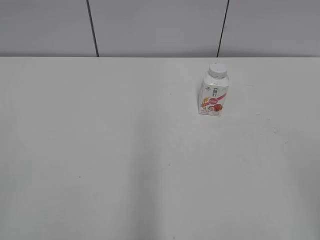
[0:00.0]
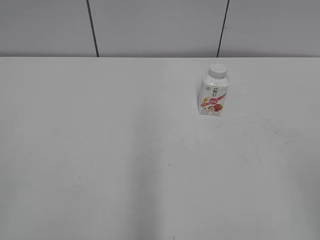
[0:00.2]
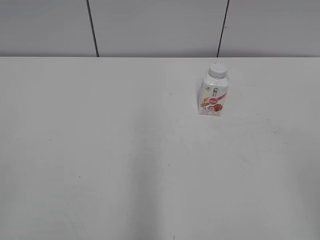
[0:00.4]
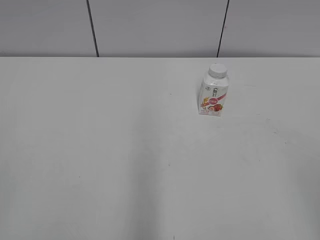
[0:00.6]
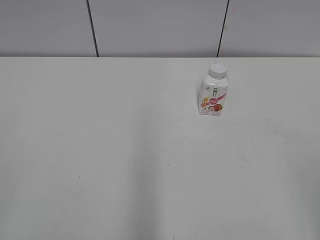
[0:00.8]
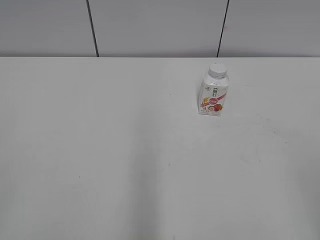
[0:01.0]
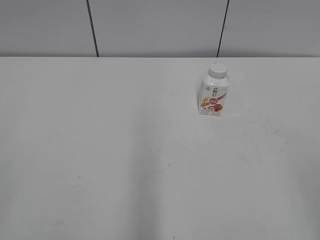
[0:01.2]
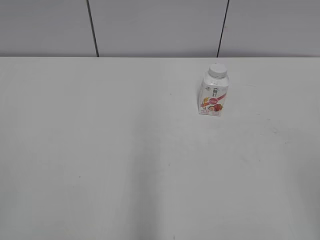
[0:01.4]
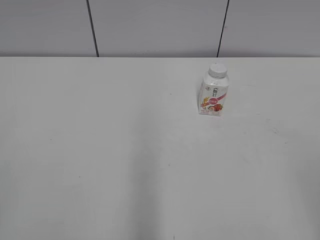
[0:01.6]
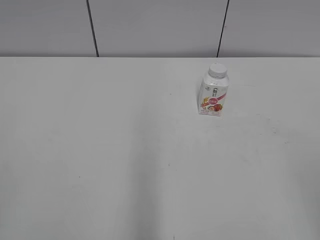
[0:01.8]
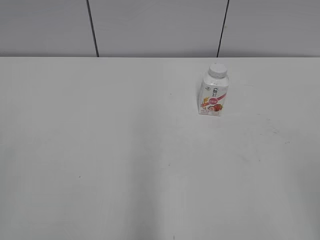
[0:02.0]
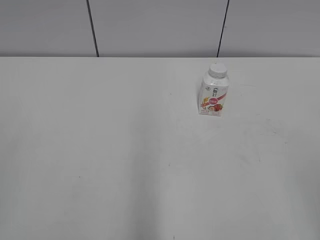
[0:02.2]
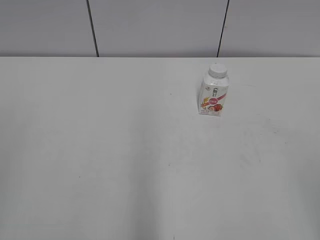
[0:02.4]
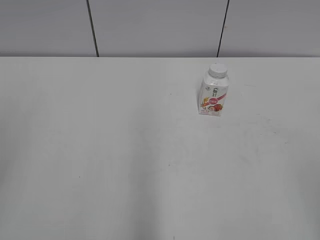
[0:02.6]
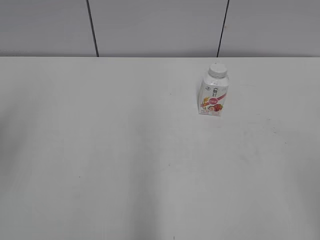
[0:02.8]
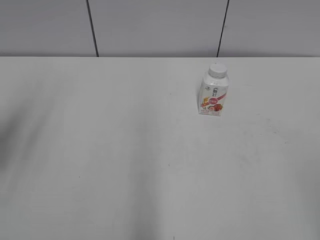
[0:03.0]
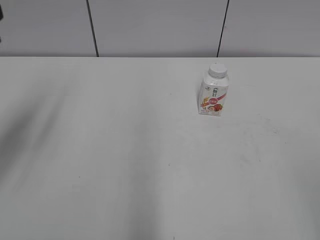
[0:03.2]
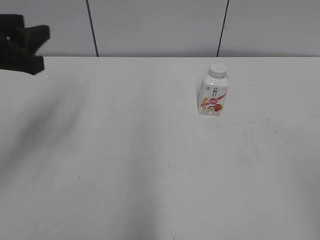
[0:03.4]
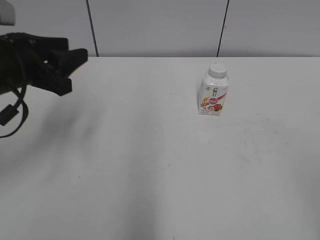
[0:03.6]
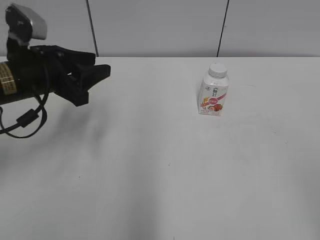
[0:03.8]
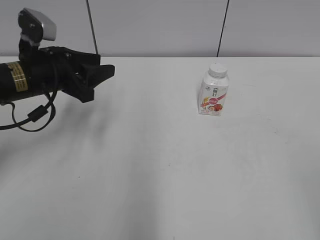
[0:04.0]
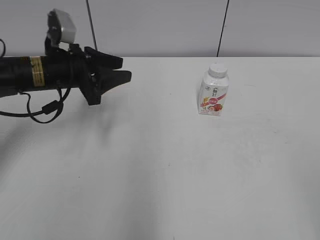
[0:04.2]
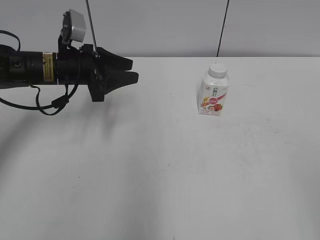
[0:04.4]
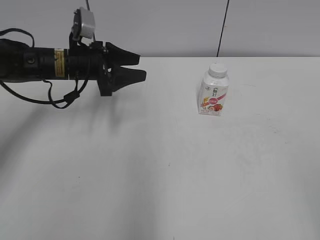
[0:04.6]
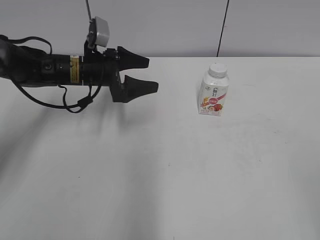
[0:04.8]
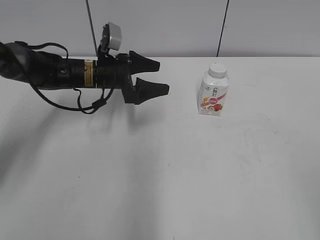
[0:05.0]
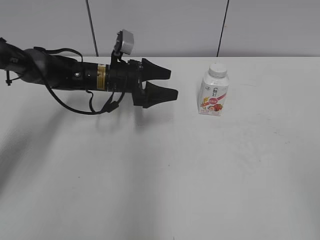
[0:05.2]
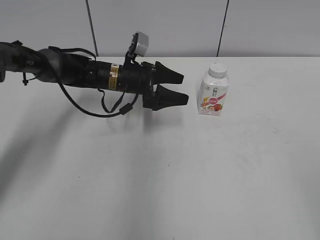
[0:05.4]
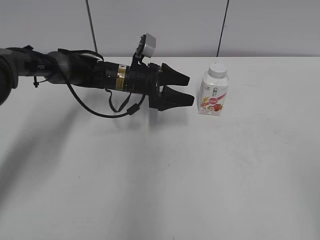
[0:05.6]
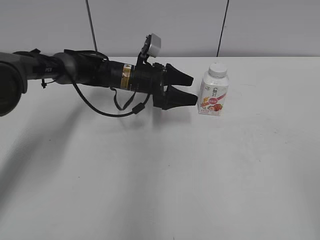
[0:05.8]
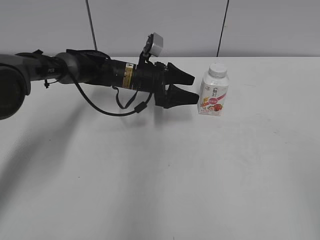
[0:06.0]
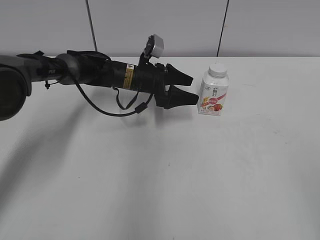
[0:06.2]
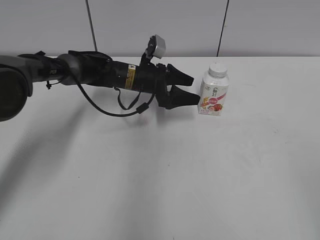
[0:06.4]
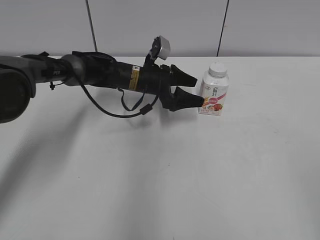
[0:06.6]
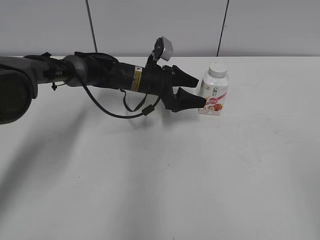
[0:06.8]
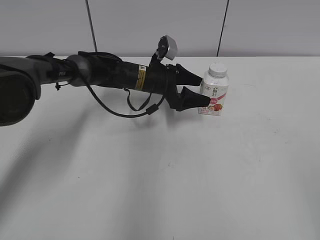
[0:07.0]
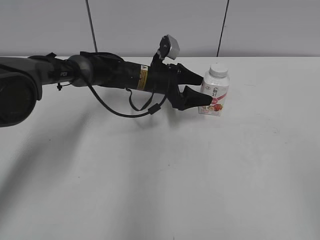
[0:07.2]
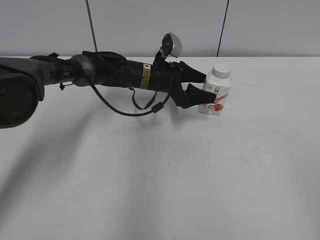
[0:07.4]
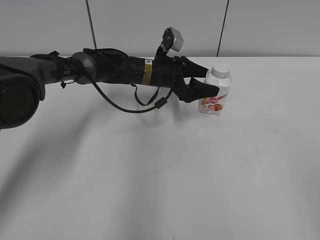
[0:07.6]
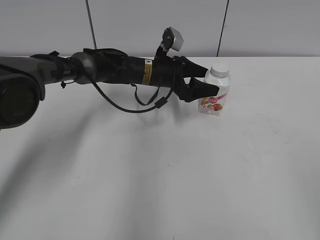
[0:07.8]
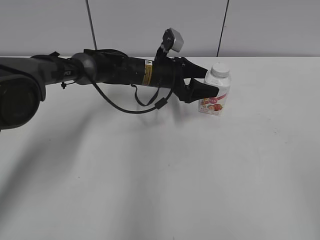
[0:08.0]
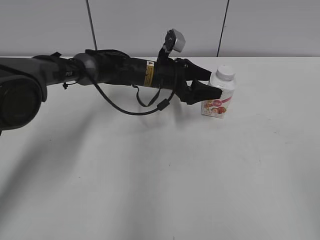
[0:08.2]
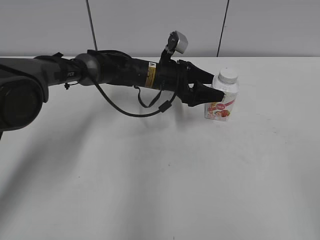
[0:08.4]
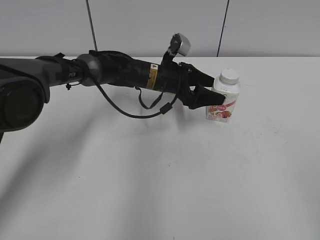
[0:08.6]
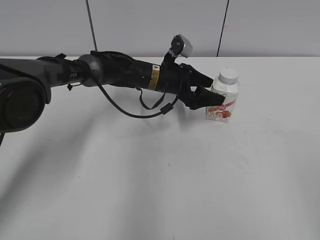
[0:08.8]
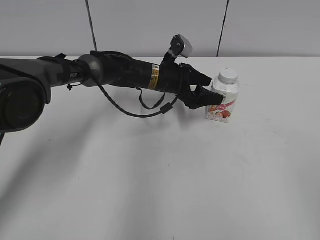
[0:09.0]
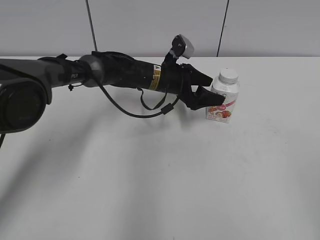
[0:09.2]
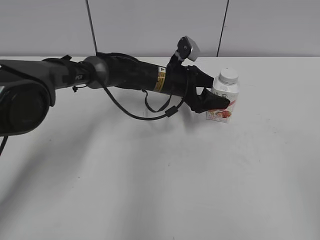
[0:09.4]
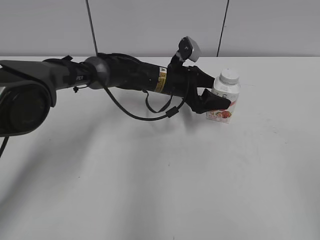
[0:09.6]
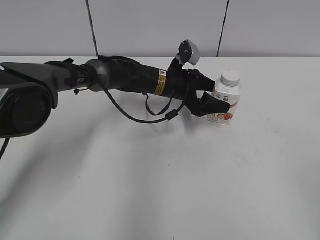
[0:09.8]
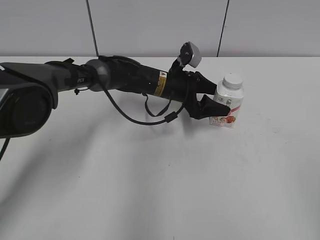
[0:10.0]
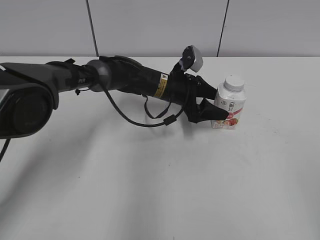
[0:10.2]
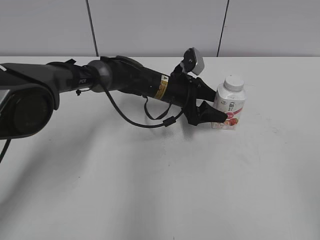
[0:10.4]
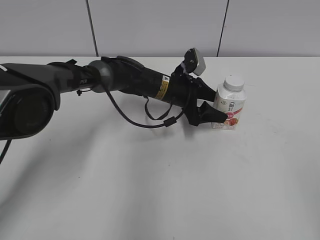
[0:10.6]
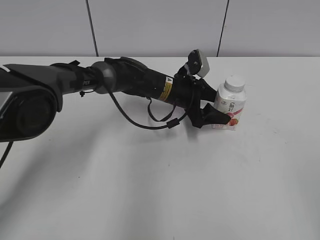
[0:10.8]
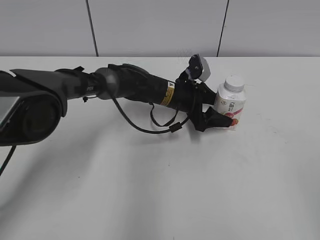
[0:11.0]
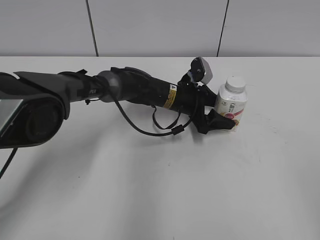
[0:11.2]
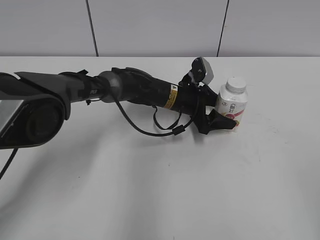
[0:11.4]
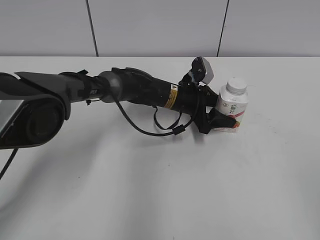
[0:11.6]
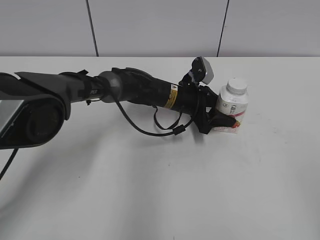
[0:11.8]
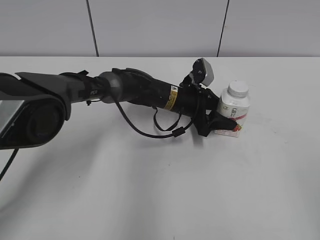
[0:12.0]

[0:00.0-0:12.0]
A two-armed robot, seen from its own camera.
Step, 0:00.0 to 0:11.8: Grab the Yili Changqing with the left hand.
0:01.6 to 0:03.0: The left gripper travels forward by some 20 cm.
0:03.0 to 0:04.4: The left gripper is displaced forward, downward and to the right by about 25 cm.
0:04.4 to 0:06.0: The left gripper travels to the right, forward and downward by about 15 cm, and opens up.
0:06.0 to 0:09.0: The grippers stay close to where they were, moving slightly.
0:09.0 to 0:10.4: The grippers stay close to where they were, moving slightly.
0:10.4 to 0:12.0: The left gripper closes up.

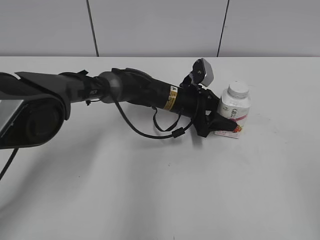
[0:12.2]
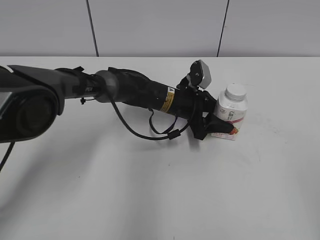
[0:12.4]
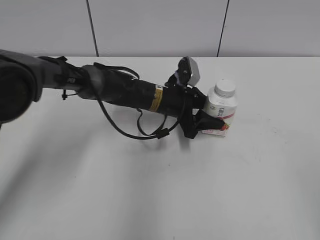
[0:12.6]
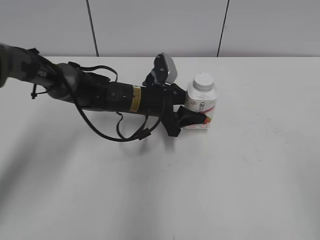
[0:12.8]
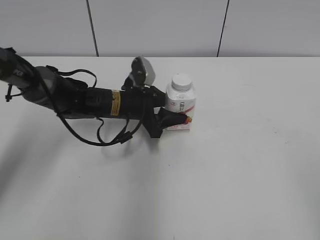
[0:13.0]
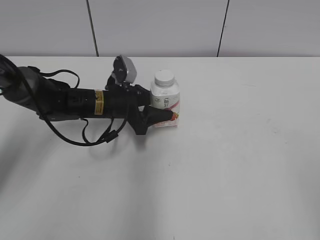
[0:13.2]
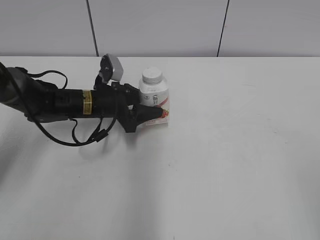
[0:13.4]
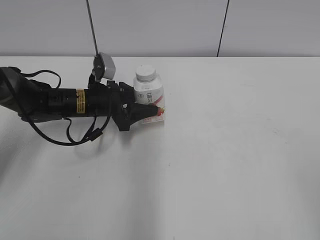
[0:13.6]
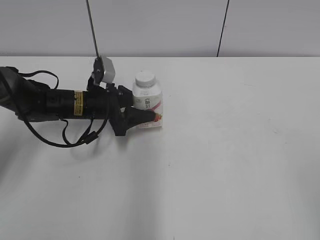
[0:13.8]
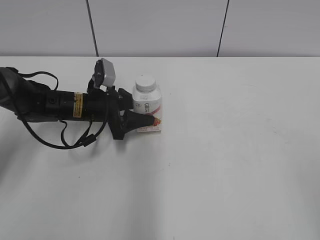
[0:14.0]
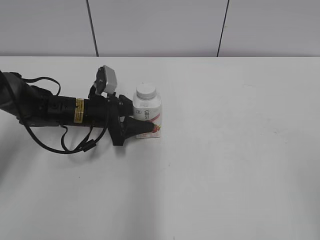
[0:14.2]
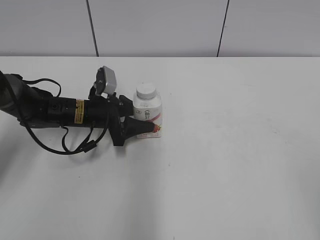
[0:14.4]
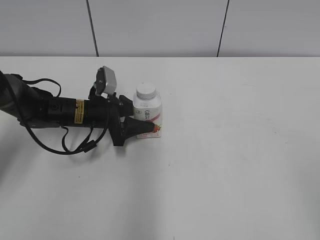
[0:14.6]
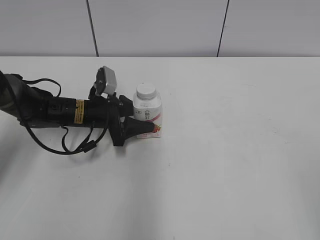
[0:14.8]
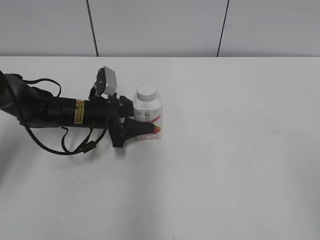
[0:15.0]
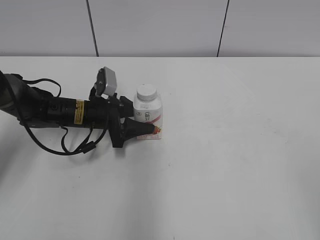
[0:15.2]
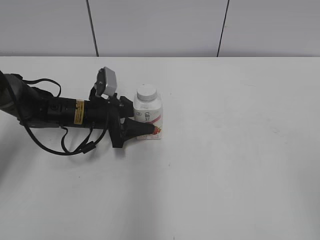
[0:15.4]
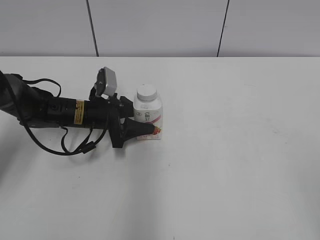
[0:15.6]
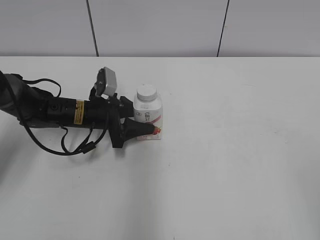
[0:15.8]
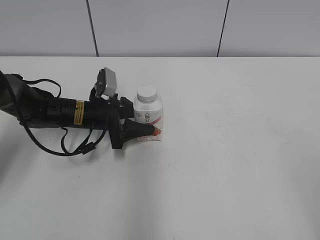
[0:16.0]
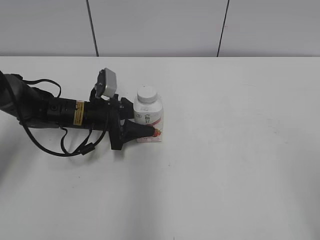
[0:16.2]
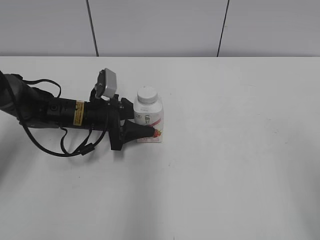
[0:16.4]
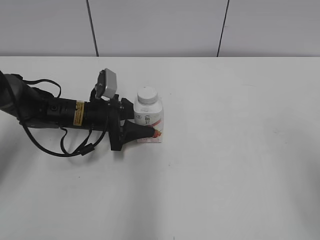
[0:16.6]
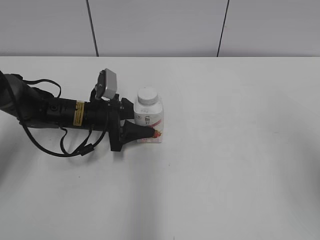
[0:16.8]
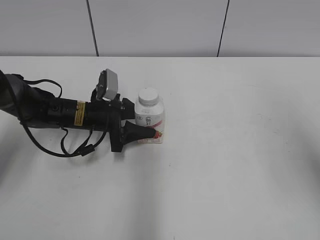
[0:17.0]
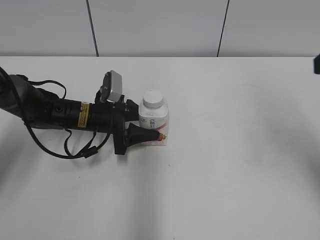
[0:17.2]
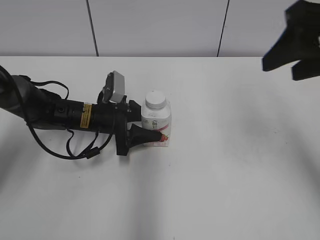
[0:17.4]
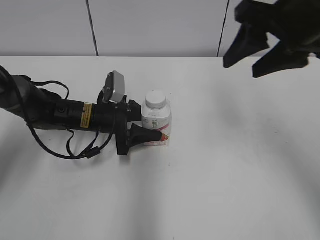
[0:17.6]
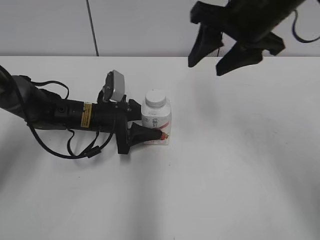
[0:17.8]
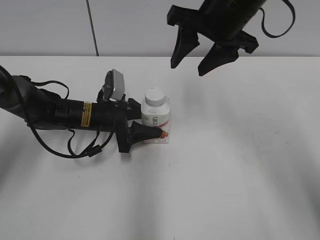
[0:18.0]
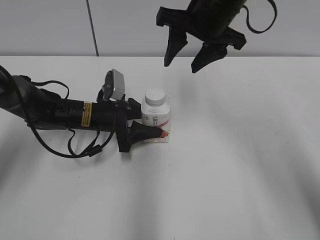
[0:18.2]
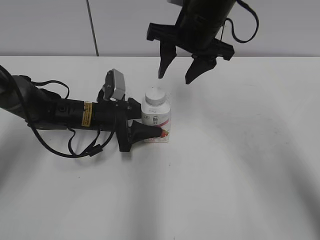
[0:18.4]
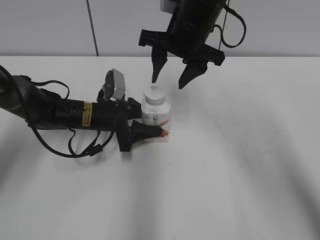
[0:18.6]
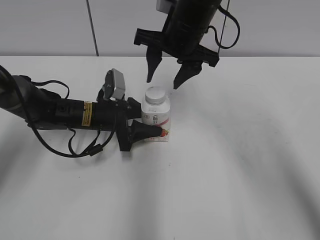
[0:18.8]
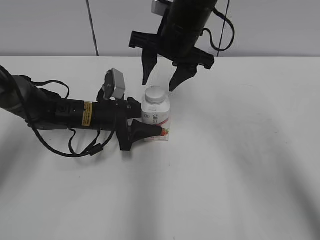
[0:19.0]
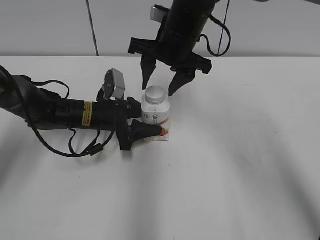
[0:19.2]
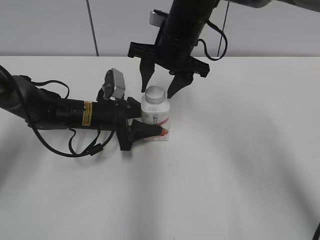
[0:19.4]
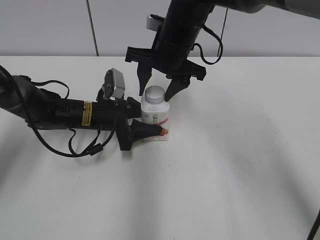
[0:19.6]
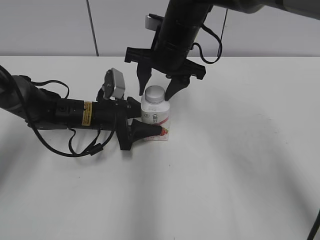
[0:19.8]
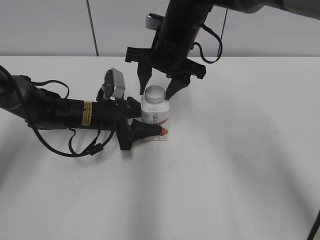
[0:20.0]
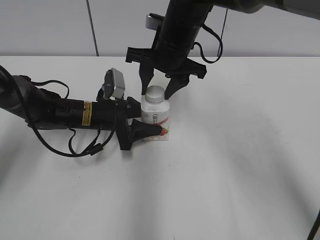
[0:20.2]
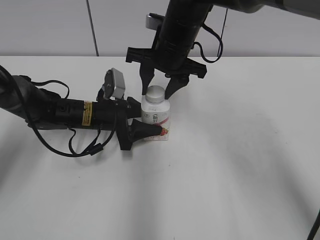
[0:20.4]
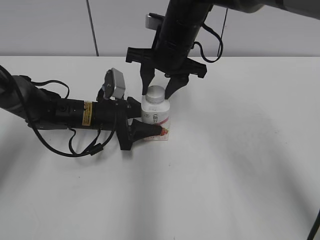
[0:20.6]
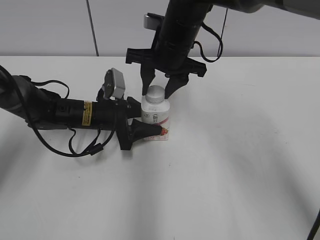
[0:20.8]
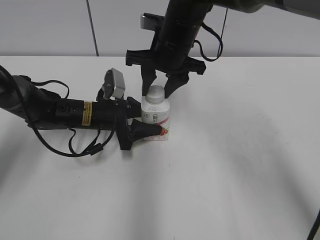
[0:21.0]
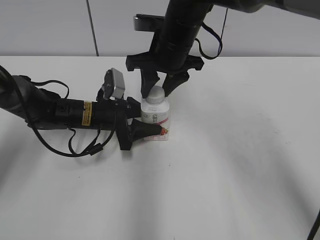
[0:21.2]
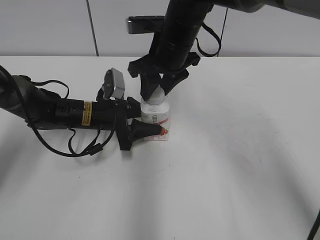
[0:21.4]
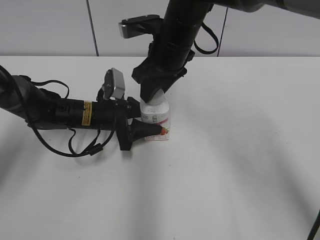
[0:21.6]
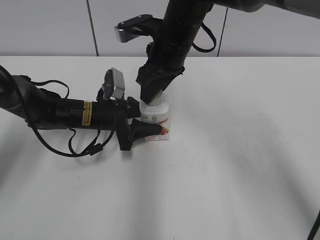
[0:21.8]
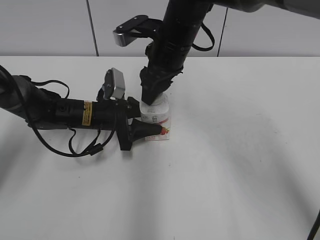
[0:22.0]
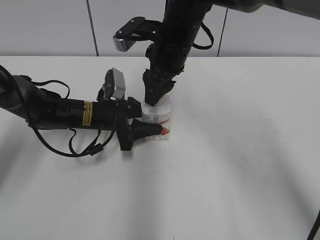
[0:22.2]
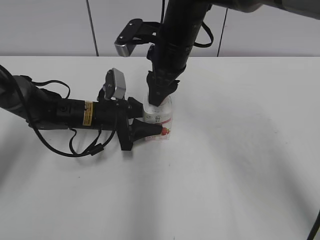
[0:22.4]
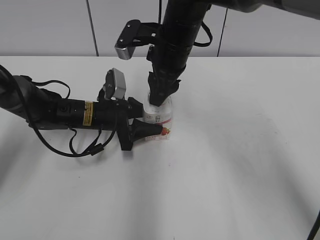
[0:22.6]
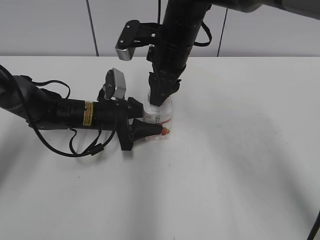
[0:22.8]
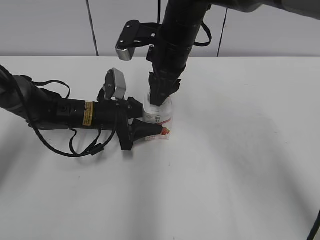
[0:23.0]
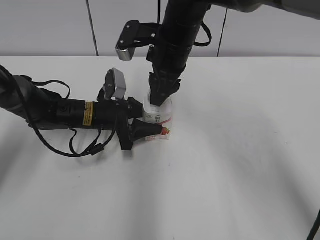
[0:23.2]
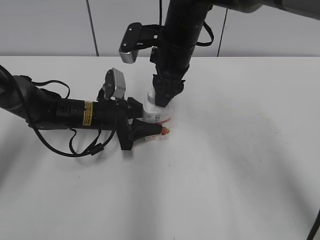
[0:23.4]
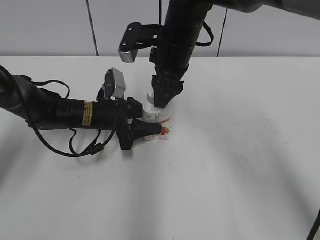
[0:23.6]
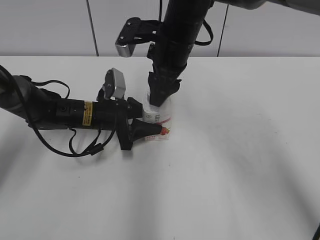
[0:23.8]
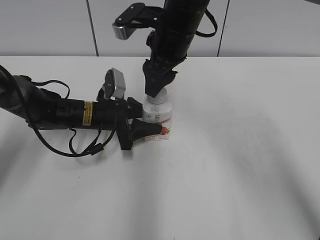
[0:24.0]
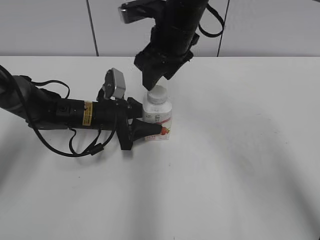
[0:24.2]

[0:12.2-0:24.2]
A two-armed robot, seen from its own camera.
Step, 0:12.2 to 0:14.4: Move the Yili Changqing from right to left.
0:12.2 to 0:13.8: The left gripper moves to the left, about 20 cm.
0:13.8 to 0:15.2: The grippers move only a little.
0:15.2 to 0:16.6: The right gripper travels forward by about 10 cm.
0:16.6 to 0:18.2: The right gripper is displaced forward and to the left by roughly 35 cm.
0:18.2 to 0:19.8: The right gripper moves downward and to the left, roughly 10 cm.
0:19.8 to 0:21.2: The right gripper closes.
0:22.6 to 0:24.2: The right gripper opens its fingers.
